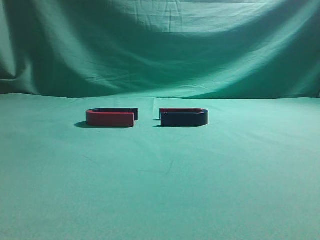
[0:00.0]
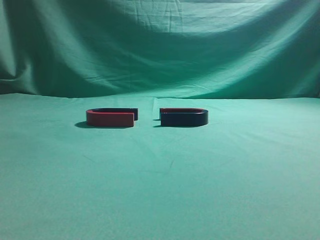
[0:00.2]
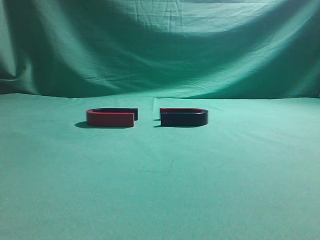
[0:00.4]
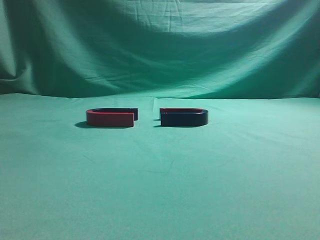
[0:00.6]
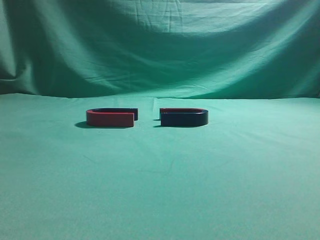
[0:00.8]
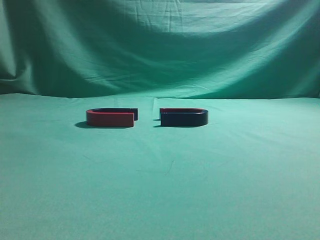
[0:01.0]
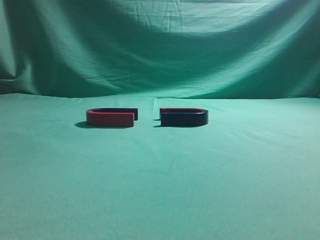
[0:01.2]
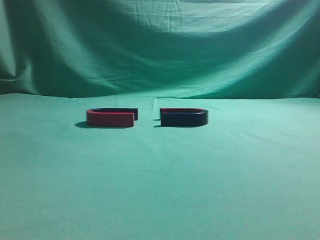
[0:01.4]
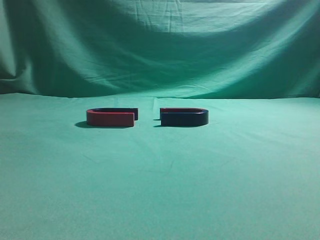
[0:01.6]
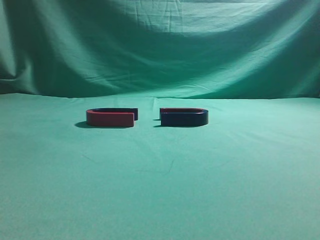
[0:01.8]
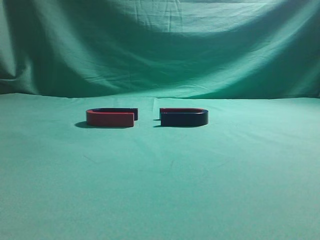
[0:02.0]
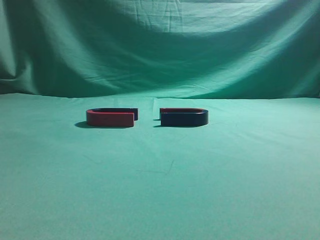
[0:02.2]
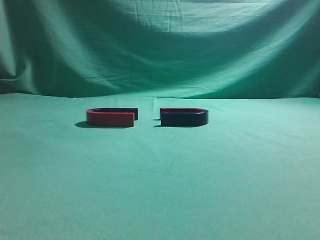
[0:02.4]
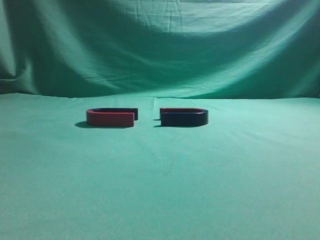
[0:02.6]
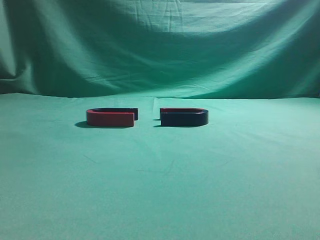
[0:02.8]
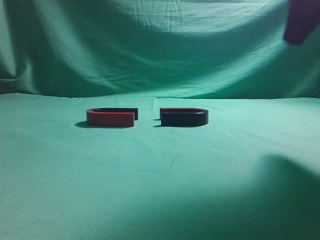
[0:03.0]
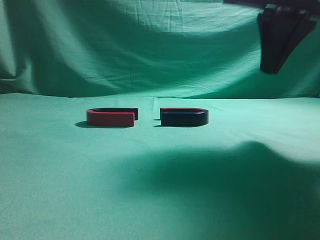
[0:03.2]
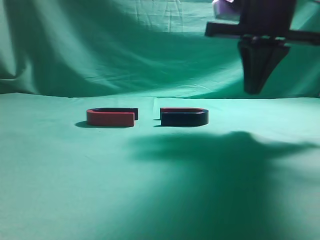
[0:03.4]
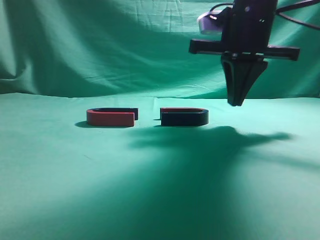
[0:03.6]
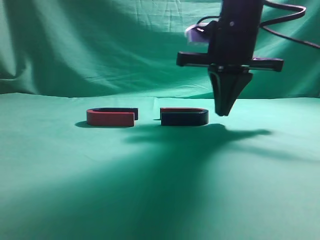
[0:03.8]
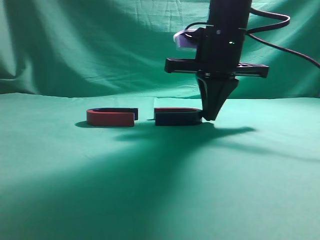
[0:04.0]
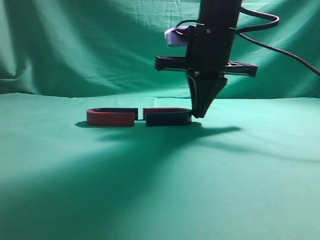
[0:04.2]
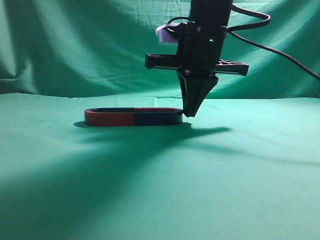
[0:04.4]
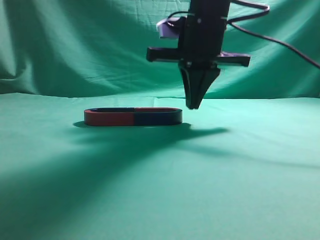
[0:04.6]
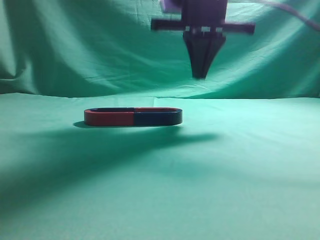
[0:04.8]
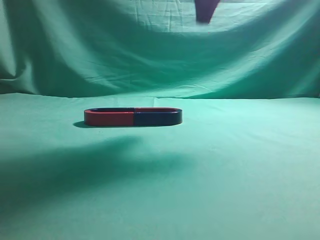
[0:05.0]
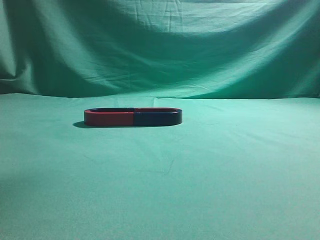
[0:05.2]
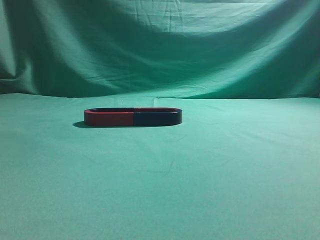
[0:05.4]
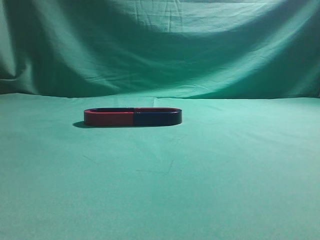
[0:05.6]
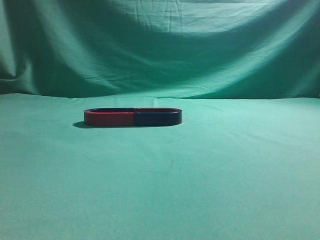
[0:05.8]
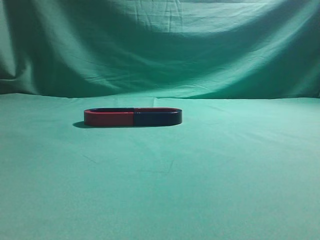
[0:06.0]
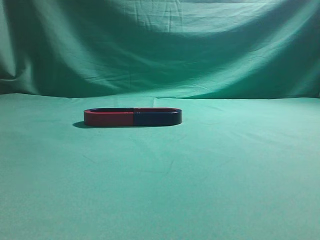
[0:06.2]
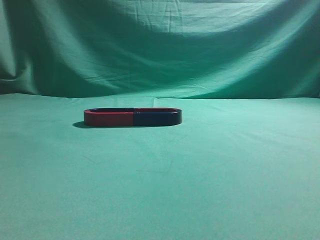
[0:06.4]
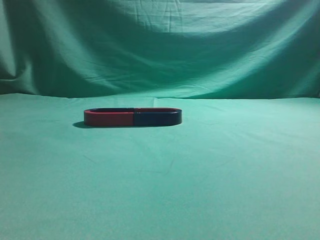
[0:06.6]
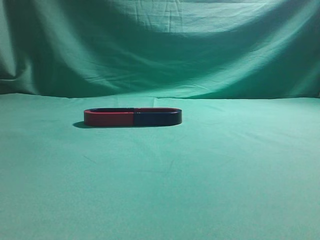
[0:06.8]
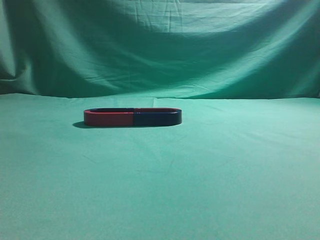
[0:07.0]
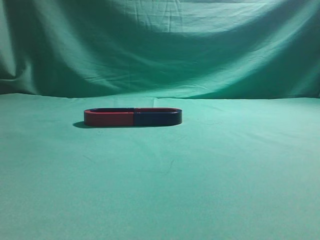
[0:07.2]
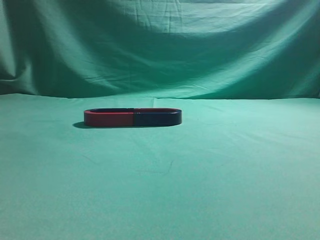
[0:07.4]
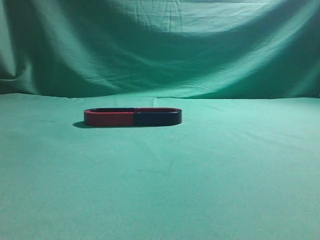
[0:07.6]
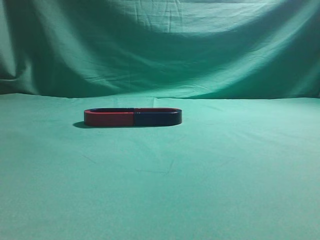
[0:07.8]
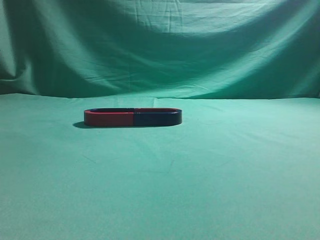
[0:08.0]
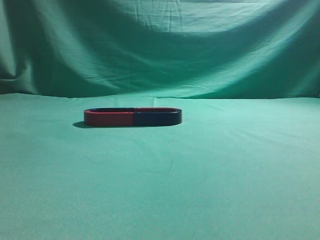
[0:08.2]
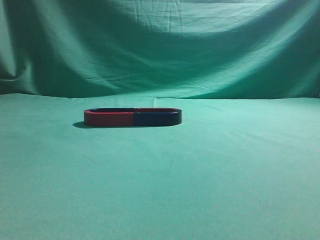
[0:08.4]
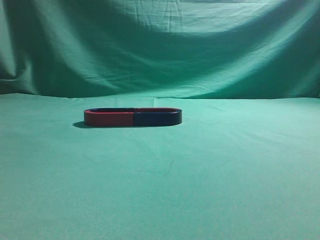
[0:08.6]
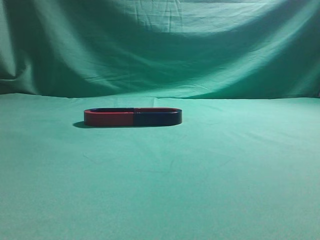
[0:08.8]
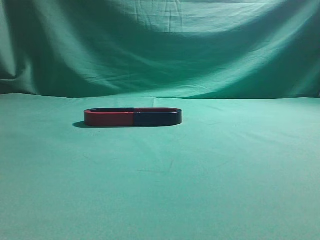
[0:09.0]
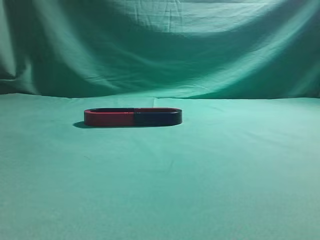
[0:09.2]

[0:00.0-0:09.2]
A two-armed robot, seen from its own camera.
Task of the whole recording: push the magnet on the table from its original position to another position.
Step, 0:00.0 to 0:04.4: Push the magnet on the right to connect the magnet on the left.
0:01.6 to 0:03.0: The right gripper heads forward and to the left, covering approximately 25 cm.
0:03.0 to 0:04.6: The right gripper moves to the left, forward and downward, roughly 20 cm.
0:04.6 to 0:06.2: The right gripper moves backward, upward and to the right, some 40 cm.
